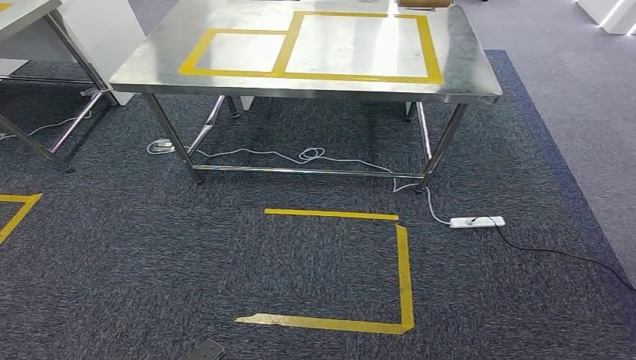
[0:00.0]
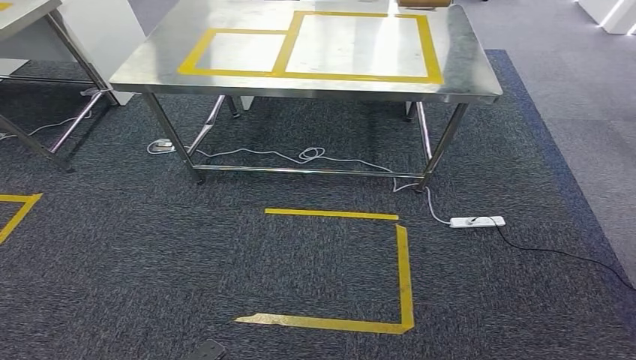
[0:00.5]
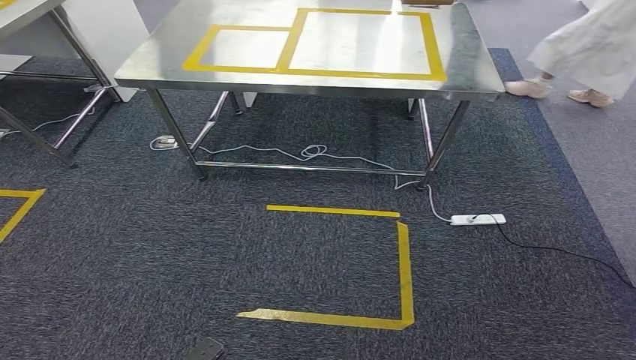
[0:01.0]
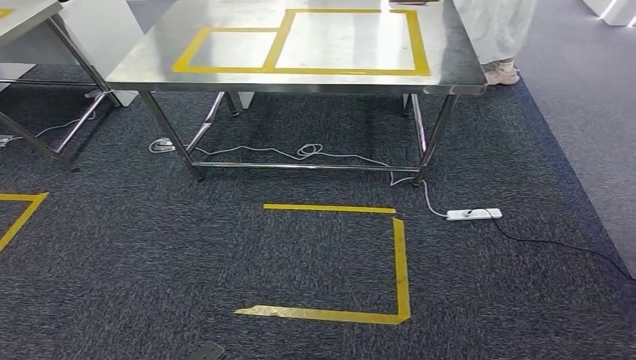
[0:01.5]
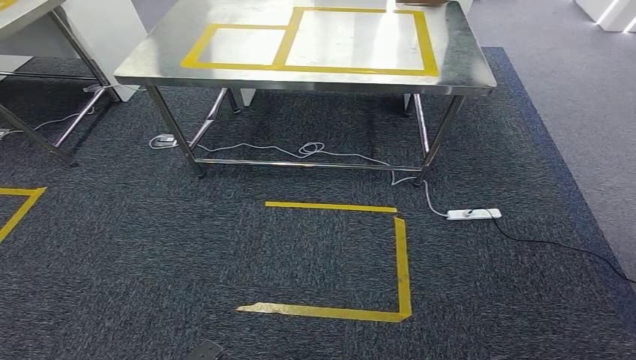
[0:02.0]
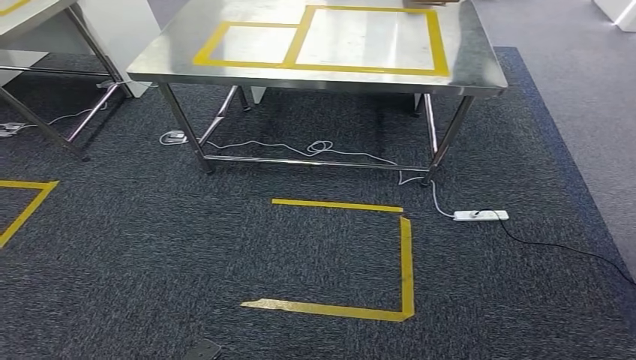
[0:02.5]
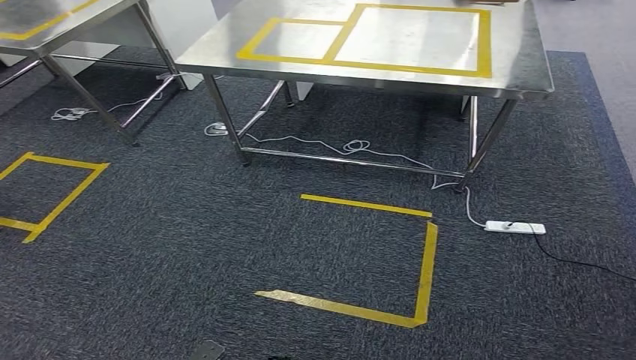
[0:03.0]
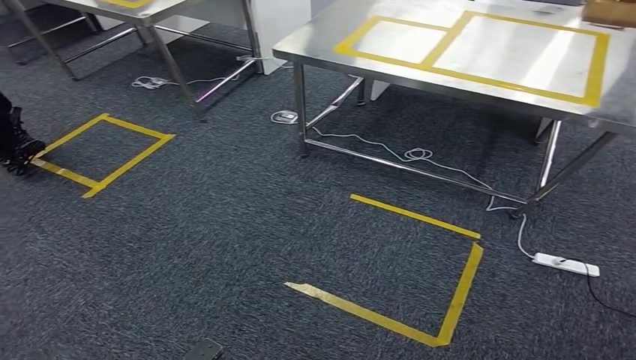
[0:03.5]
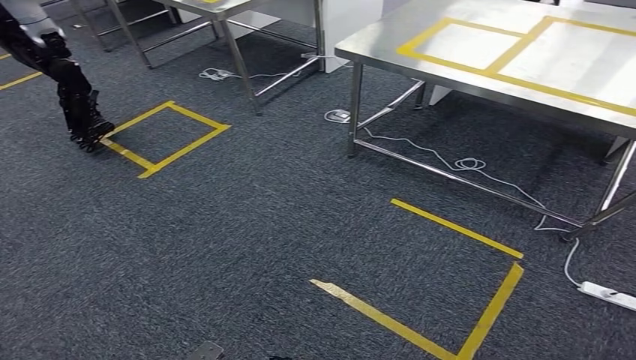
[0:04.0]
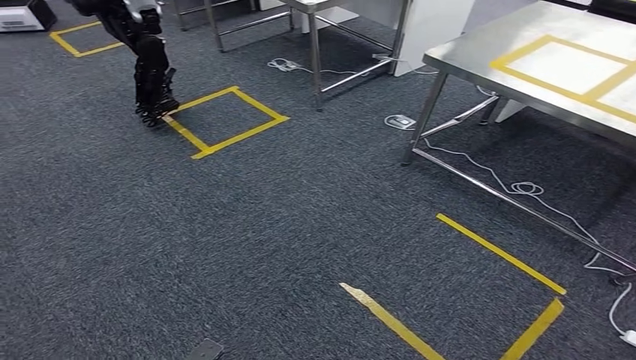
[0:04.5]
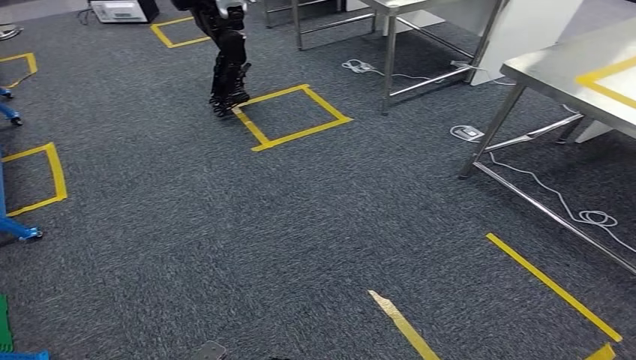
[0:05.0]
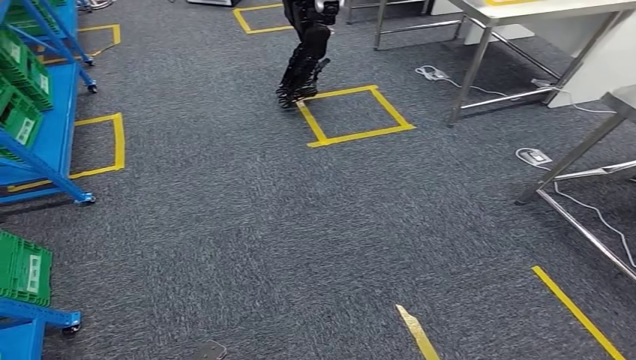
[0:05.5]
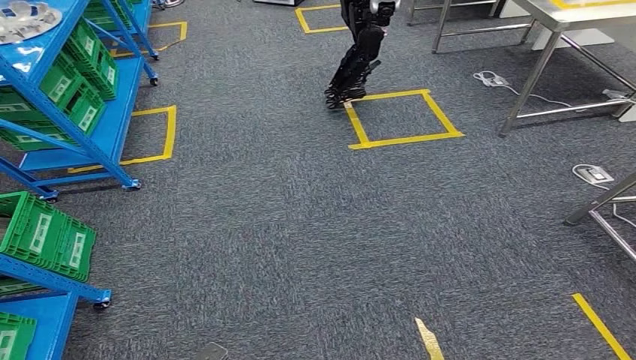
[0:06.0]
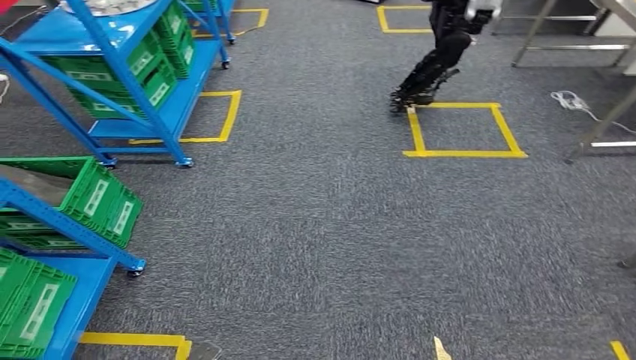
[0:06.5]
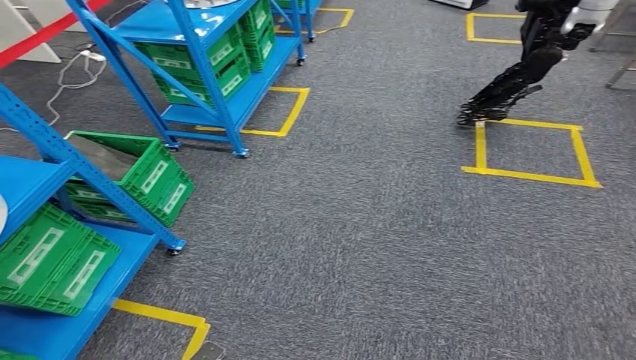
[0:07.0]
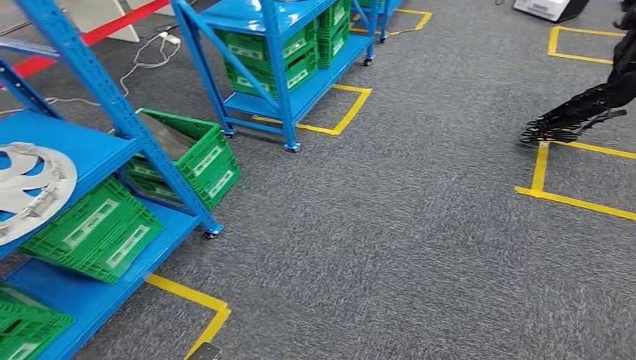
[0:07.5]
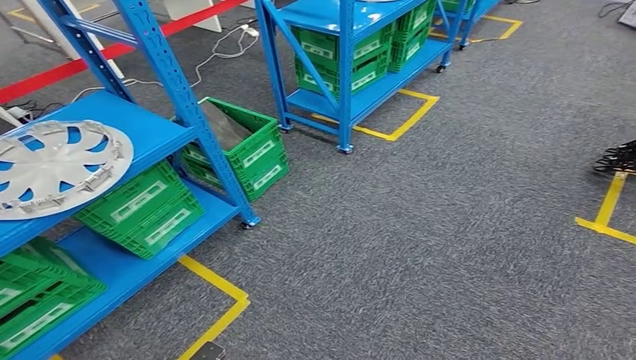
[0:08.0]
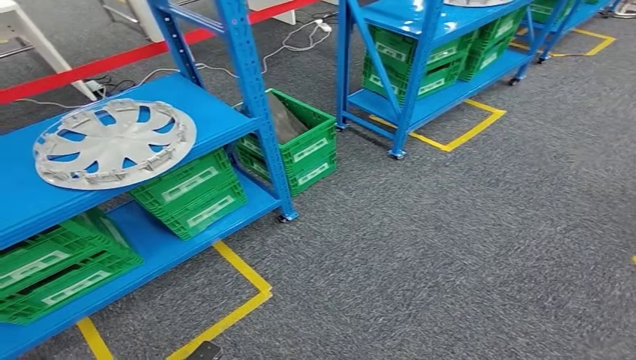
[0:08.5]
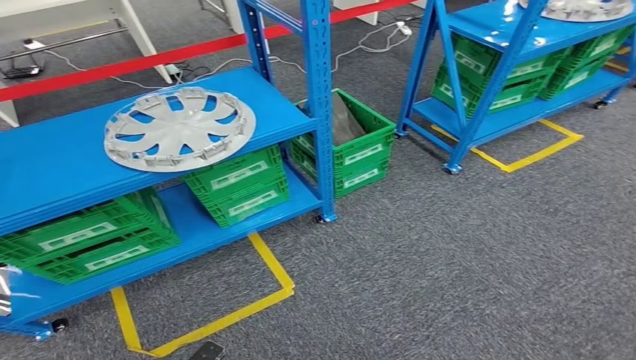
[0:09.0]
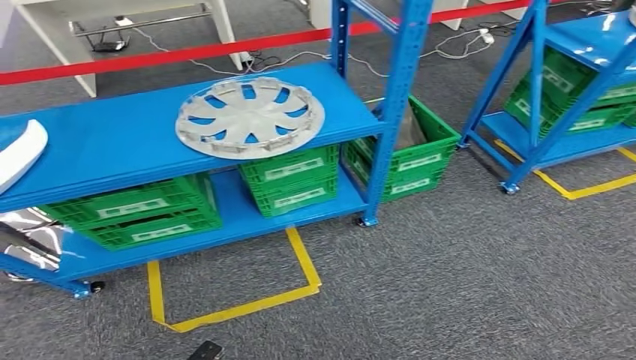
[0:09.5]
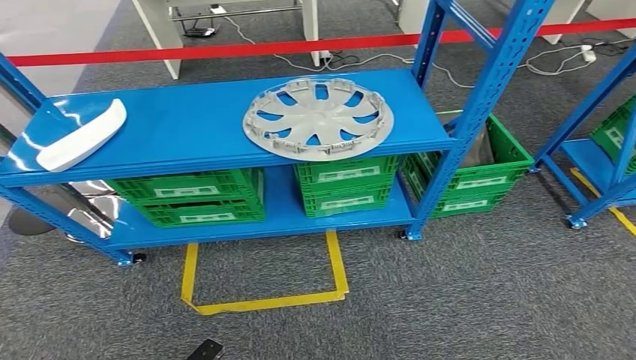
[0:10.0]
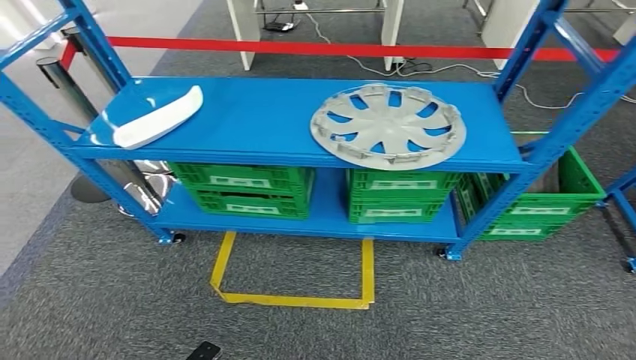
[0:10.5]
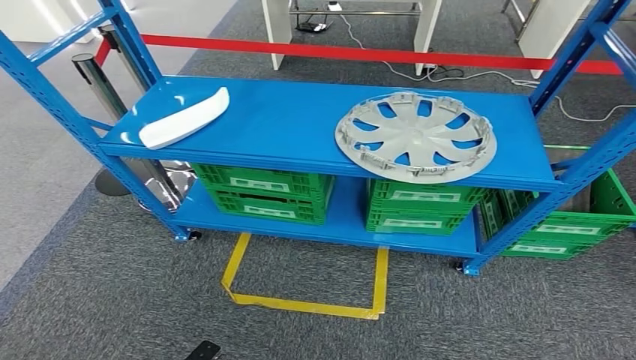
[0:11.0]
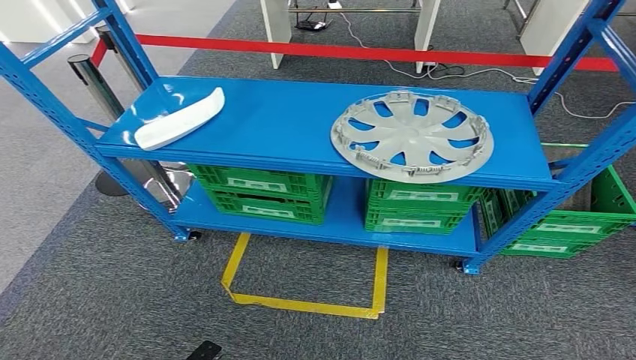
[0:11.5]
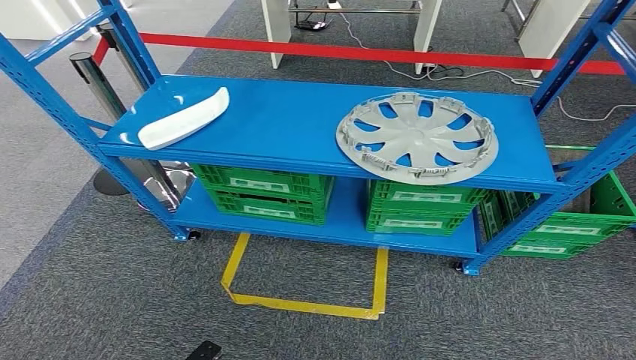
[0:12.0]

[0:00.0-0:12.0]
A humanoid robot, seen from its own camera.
Step, 0:00.0 to 0:12.0: Return to the initial position at the workbench.
0:00.0 to 0:02.0: Neither hand changes place.

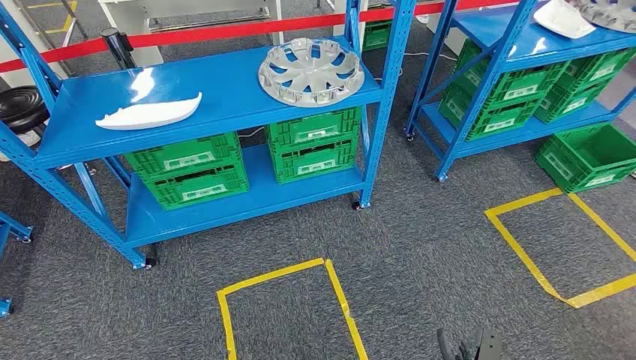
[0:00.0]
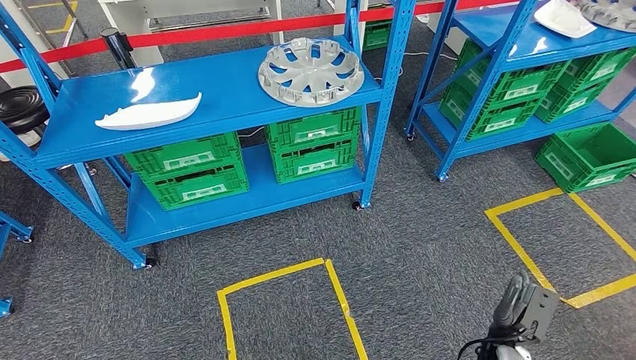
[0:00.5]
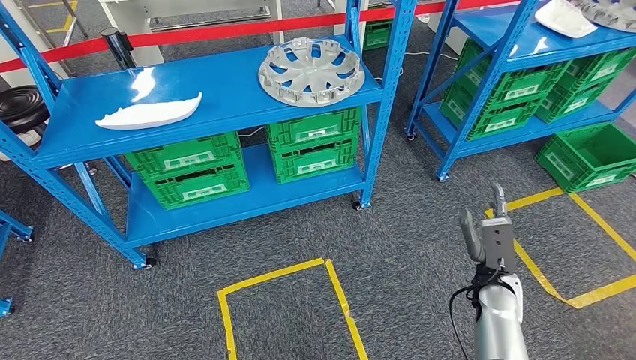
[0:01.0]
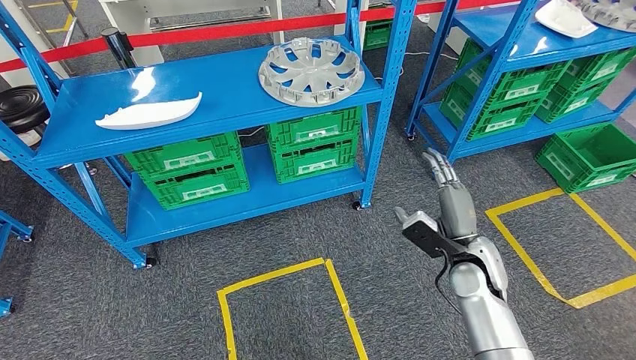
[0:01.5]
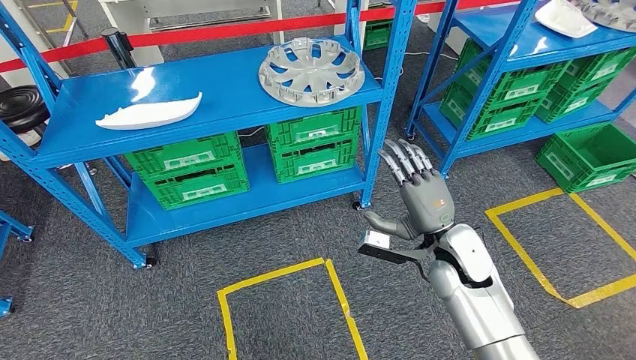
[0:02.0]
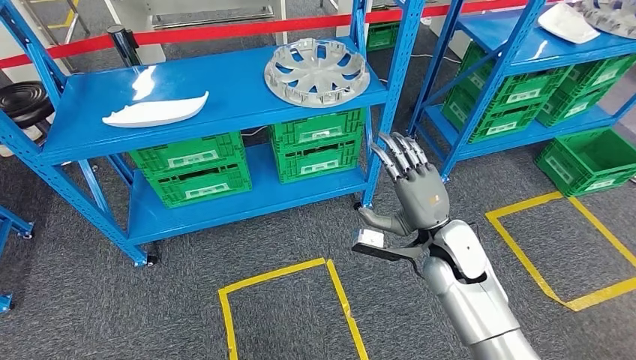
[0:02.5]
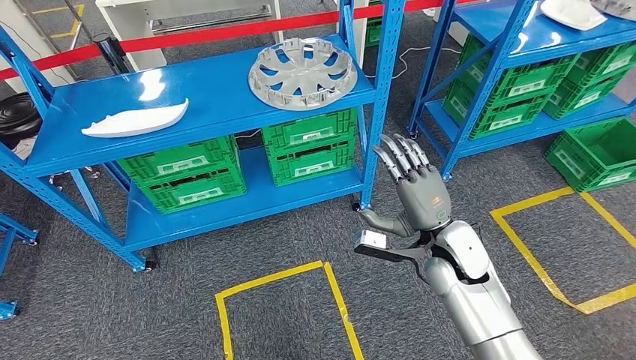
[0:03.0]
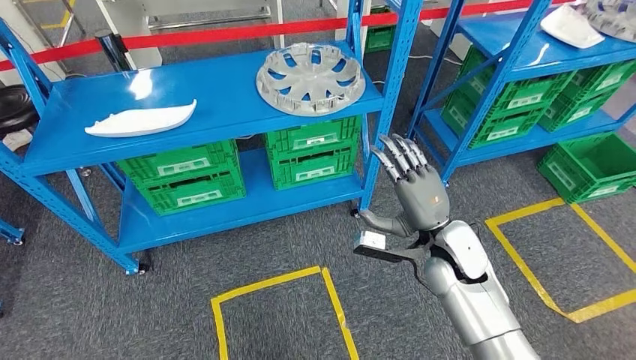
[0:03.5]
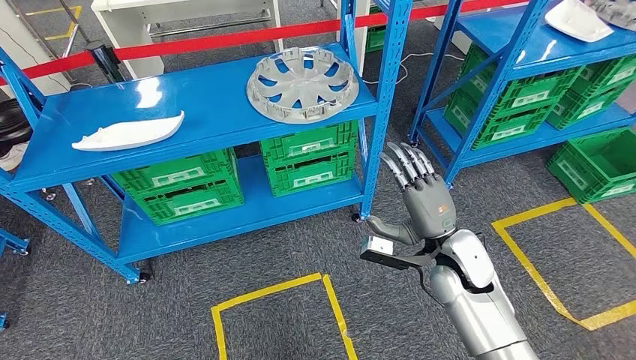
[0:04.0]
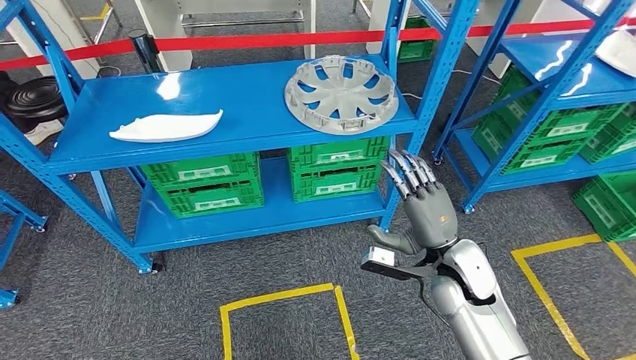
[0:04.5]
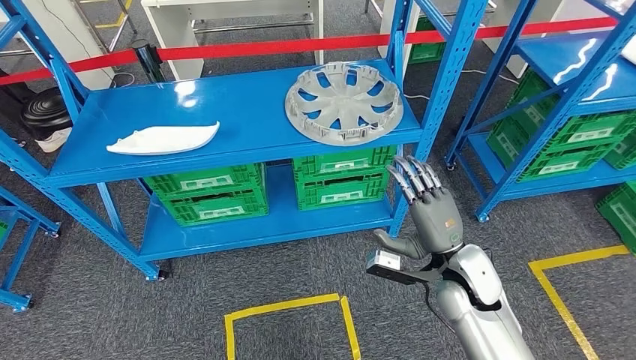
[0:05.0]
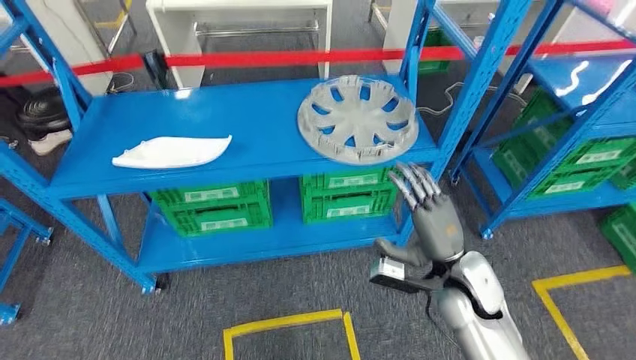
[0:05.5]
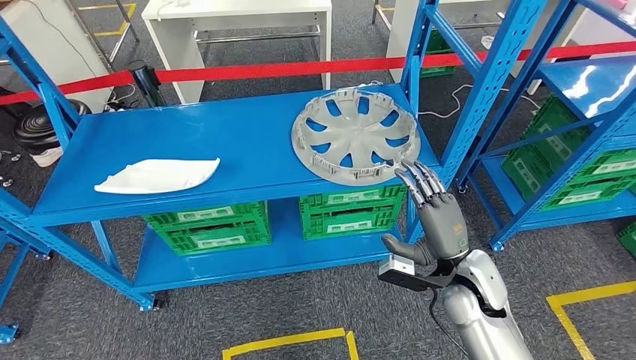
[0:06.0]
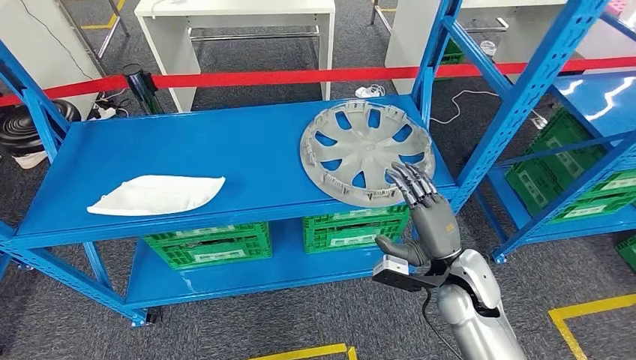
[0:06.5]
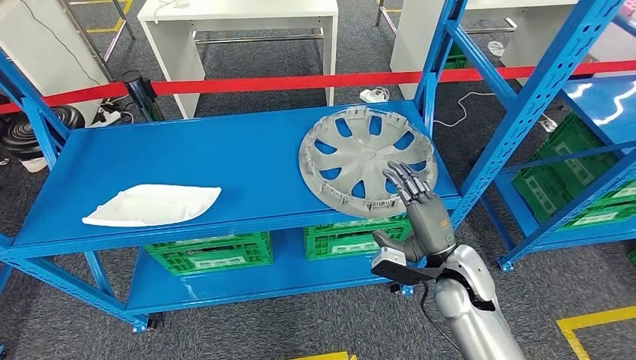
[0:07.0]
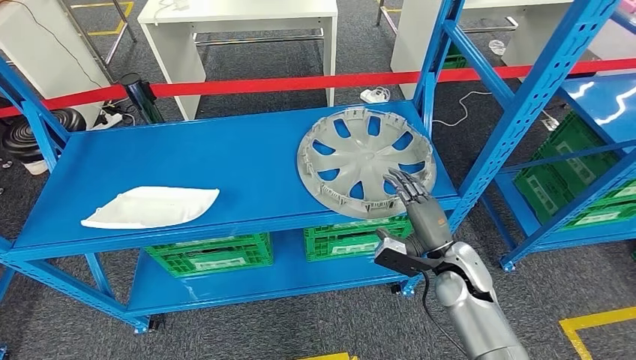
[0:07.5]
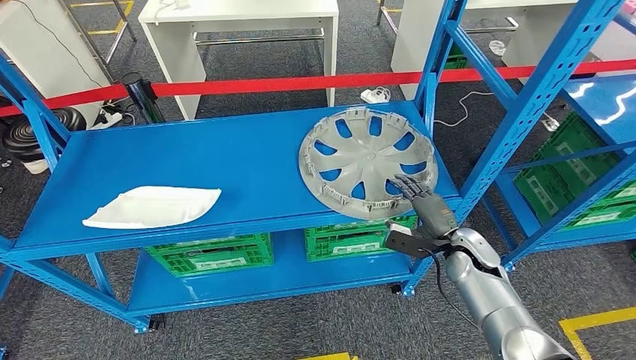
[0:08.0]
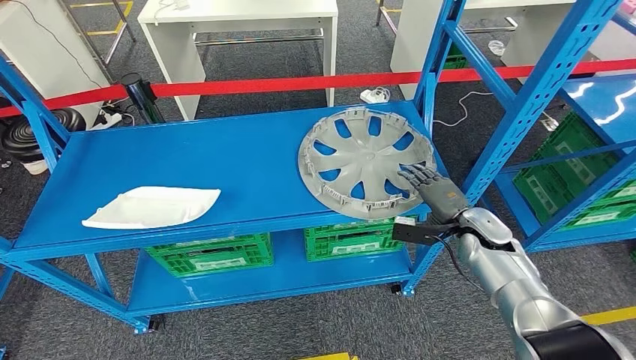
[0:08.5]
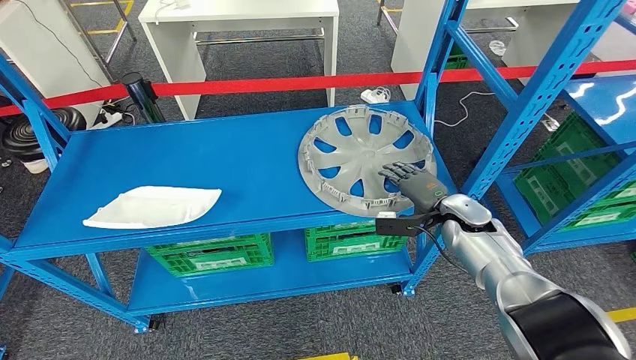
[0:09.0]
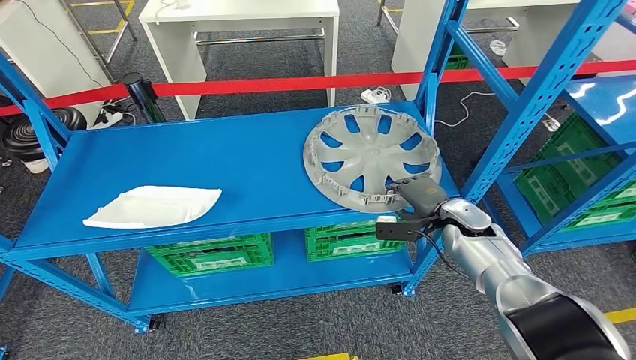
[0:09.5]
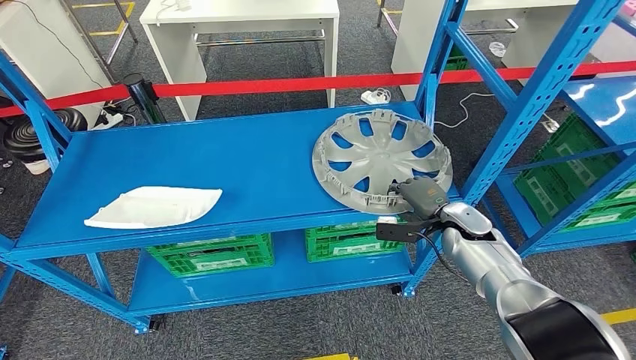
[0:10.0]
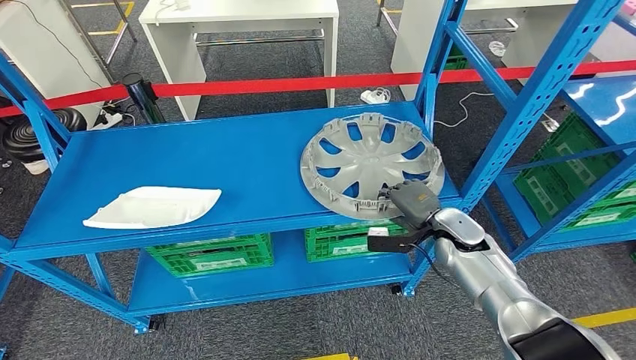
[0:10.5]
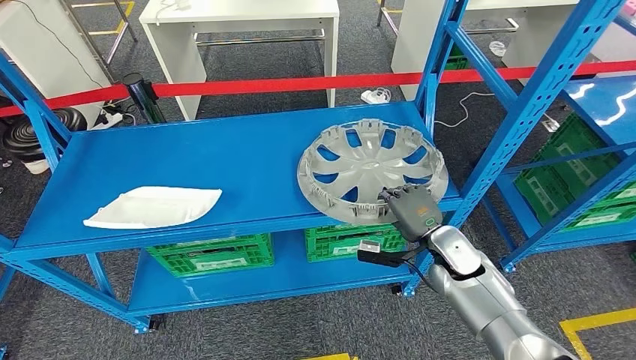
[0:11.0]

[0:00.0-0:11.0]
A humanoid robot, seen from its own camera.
0:07.5 to 0:09.0: The right hand is displaced forward by approximately 10 cm.
0:09.0 to 0:11.0: The right hand travels backward by about 5 cm.
